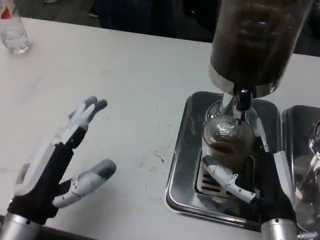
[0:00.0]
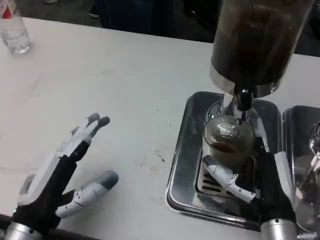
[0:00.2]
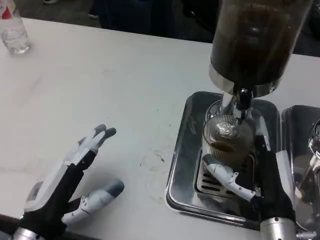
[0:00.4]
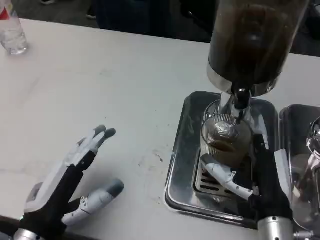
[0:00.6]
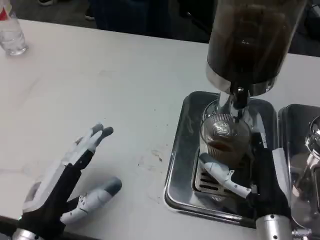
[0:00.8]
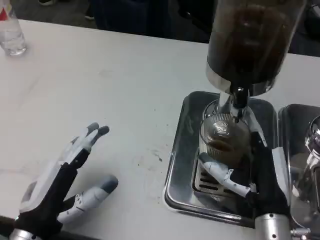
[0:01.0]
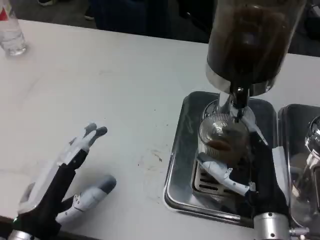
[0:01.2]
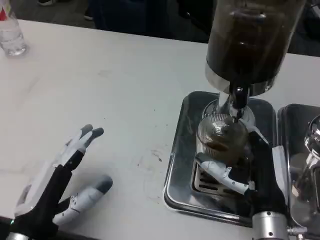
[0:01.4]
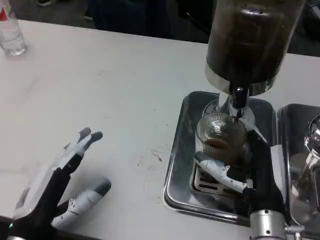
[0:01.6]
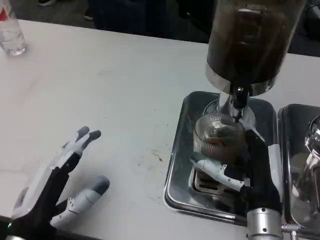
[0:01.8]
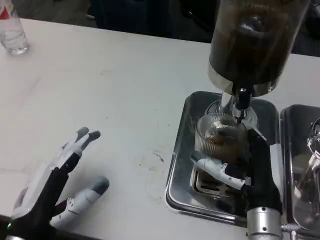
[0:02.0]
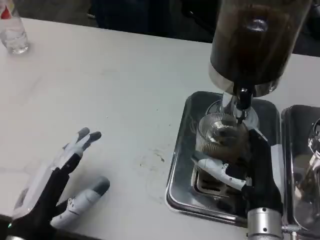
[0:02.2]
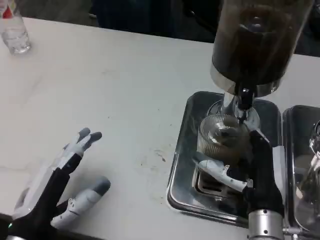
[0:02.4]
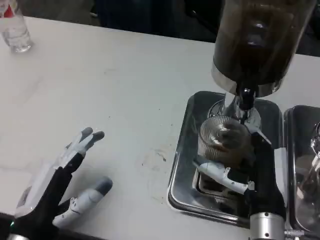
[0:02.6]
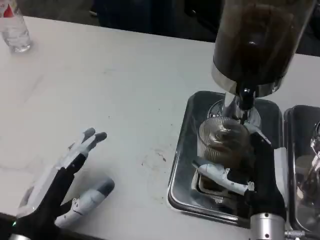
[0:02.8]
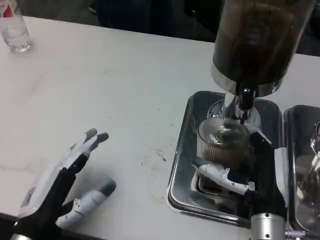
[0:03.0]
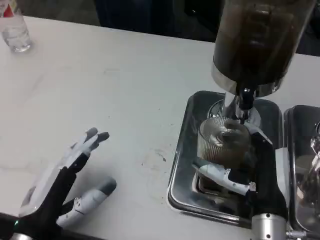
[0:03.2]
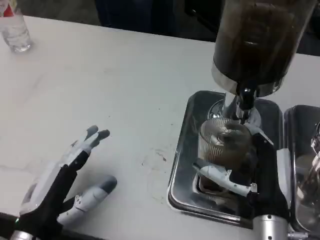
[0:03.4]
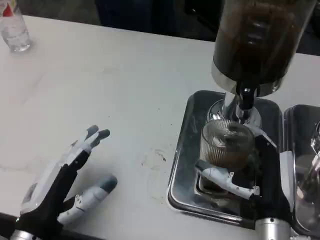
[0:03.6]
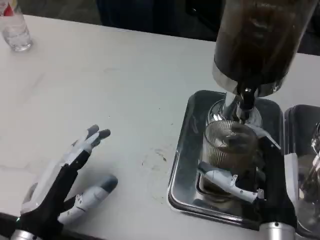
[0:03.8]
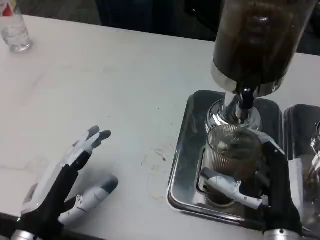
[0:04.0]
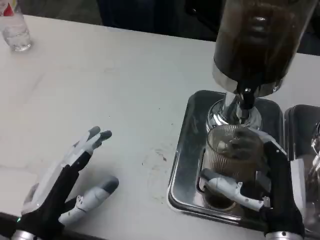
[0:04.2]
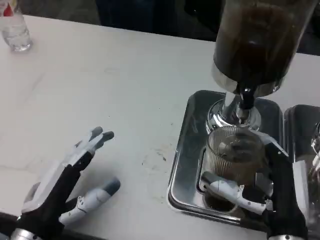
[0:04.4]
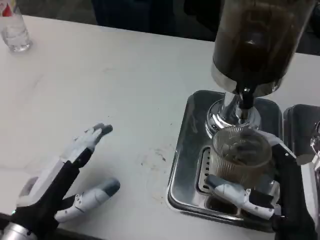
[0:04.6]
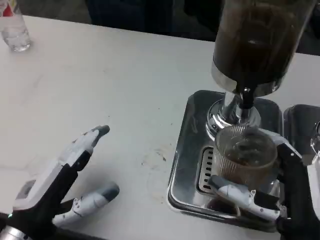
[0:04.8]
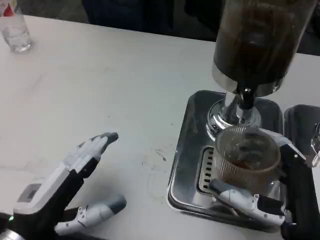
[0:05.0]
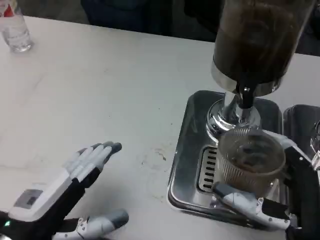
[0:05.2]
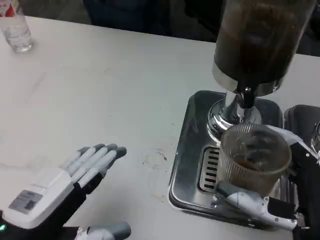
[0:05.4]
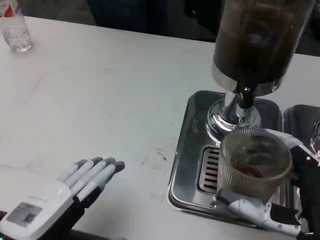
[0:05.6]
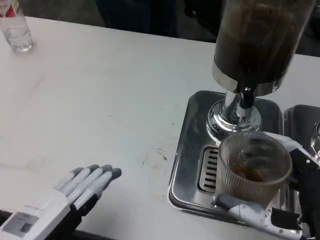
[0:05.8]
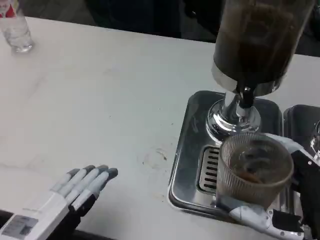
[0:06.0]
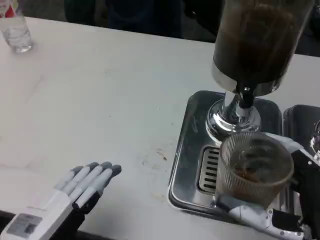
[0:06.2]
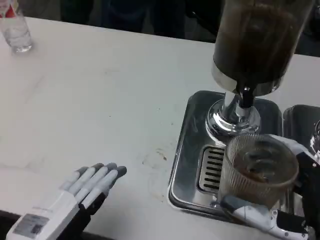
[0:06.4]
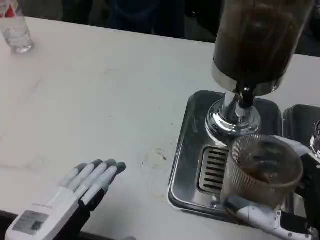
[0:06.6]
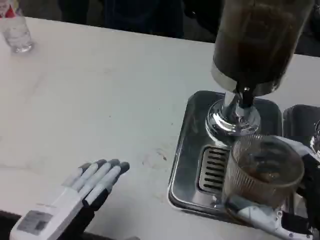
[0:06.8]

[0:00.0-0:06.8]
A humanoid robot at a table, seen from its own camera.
Task of the whole recording: Grasp the cup under the faucet to collect the drink, then remove the cup.
0:01.4 to 0:04.0: There are only small adjustments of the hands.
0:04.0 to 0:05.4: The right hand heads backward and upward, covering some 5 cm; the left hand is displaced upward by about 5 cm.
0:05.4 to 0:06.8: The hands stay close to where they were, moving slightly.

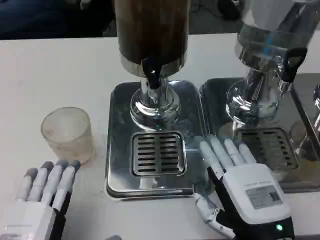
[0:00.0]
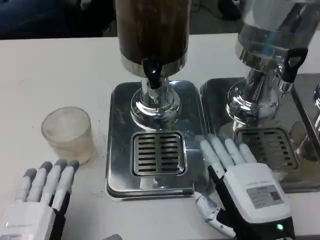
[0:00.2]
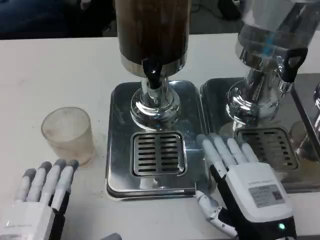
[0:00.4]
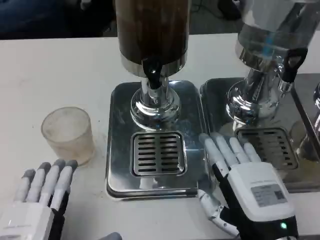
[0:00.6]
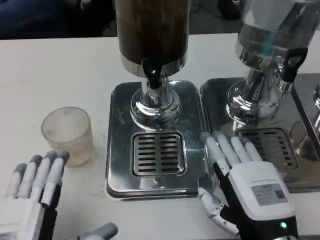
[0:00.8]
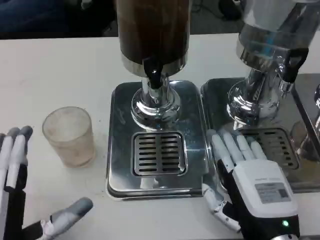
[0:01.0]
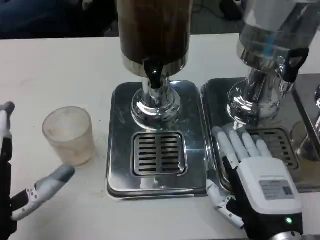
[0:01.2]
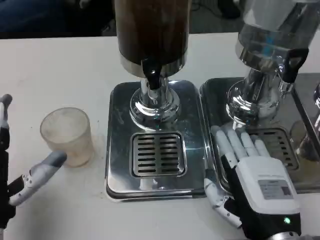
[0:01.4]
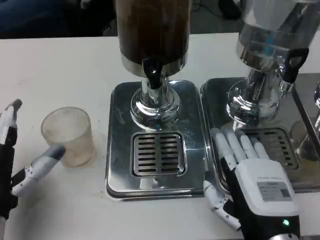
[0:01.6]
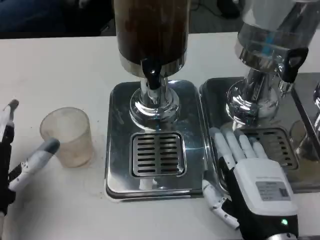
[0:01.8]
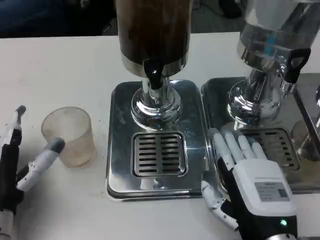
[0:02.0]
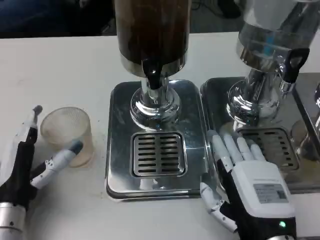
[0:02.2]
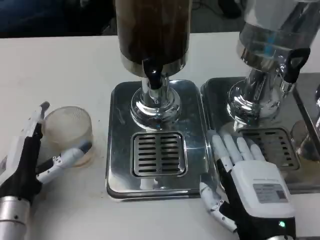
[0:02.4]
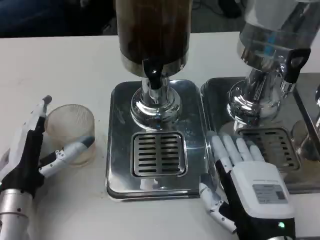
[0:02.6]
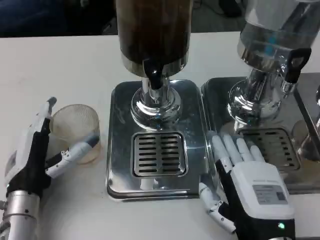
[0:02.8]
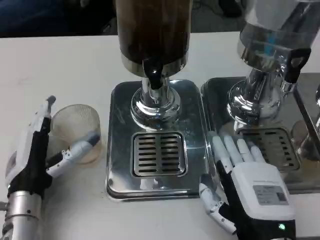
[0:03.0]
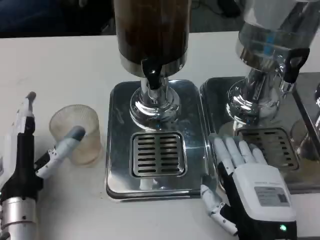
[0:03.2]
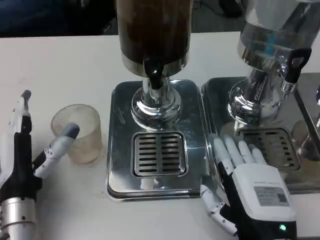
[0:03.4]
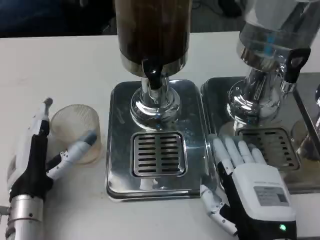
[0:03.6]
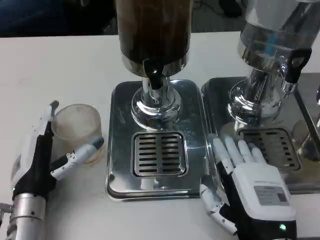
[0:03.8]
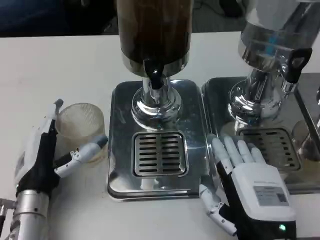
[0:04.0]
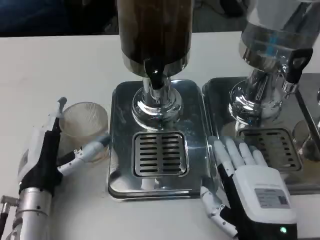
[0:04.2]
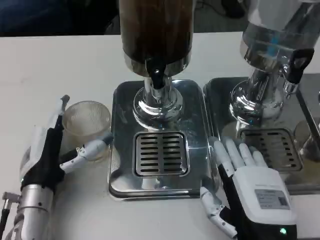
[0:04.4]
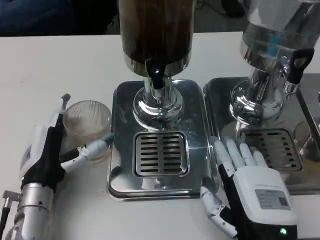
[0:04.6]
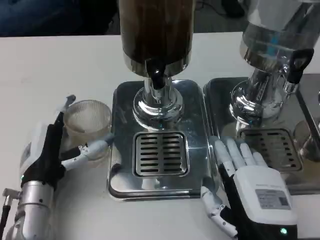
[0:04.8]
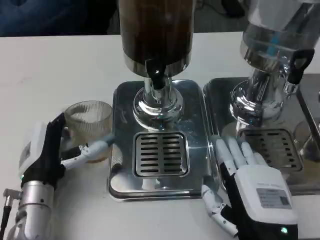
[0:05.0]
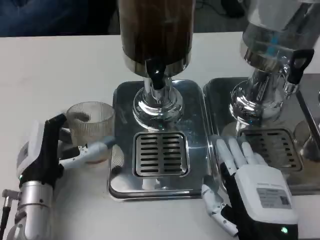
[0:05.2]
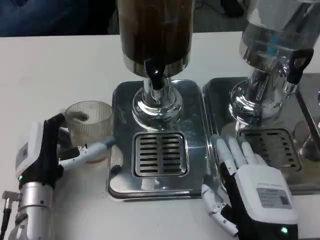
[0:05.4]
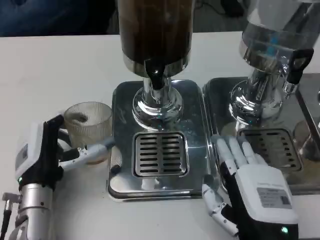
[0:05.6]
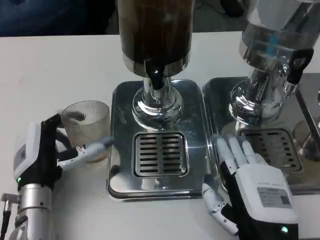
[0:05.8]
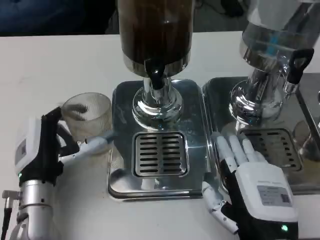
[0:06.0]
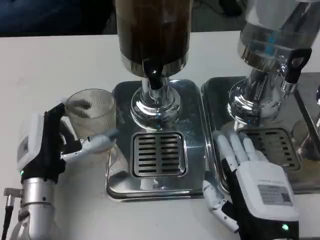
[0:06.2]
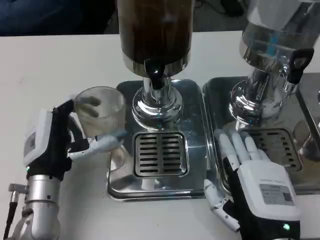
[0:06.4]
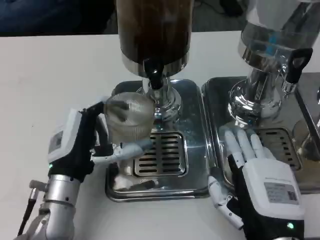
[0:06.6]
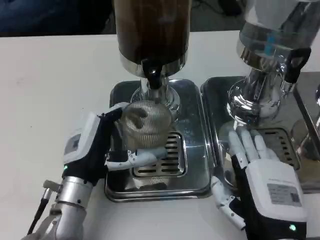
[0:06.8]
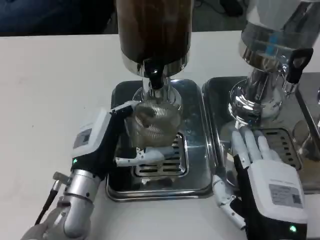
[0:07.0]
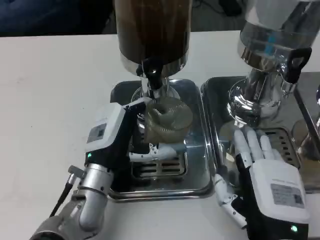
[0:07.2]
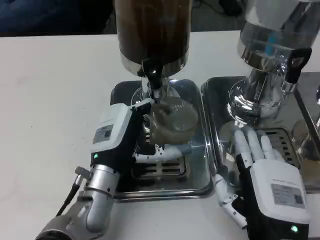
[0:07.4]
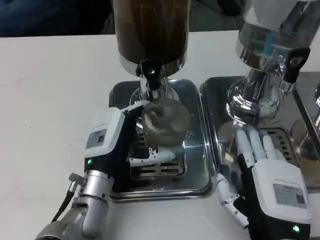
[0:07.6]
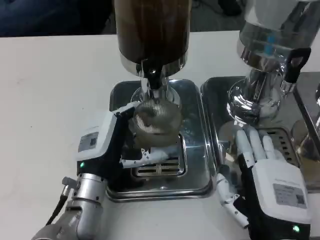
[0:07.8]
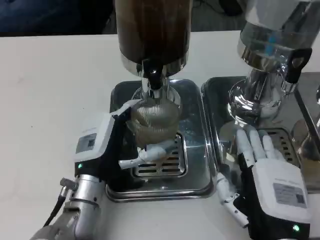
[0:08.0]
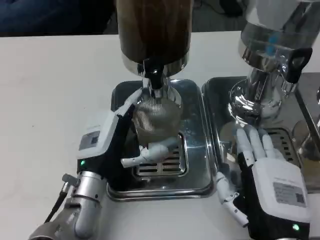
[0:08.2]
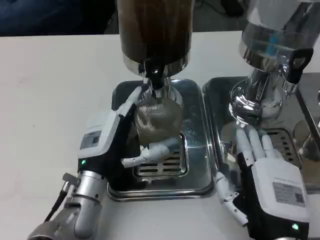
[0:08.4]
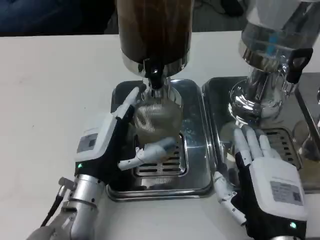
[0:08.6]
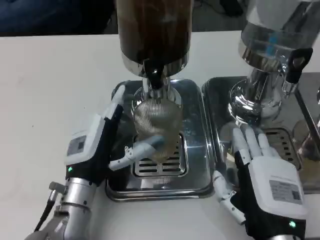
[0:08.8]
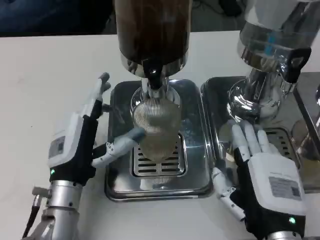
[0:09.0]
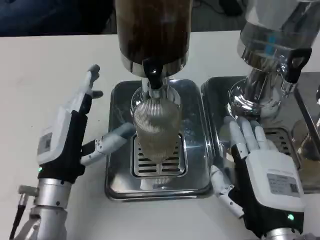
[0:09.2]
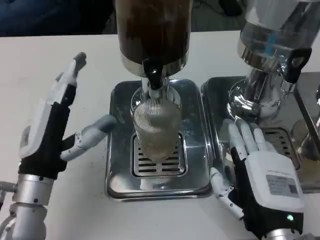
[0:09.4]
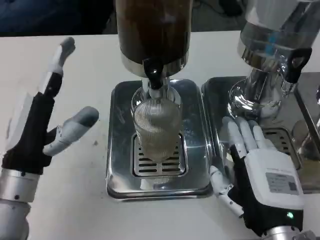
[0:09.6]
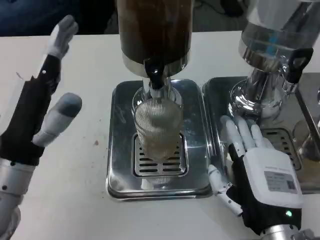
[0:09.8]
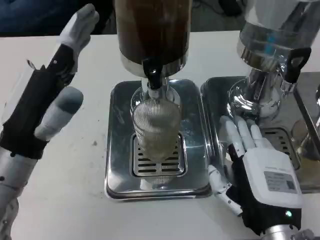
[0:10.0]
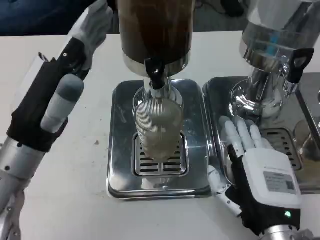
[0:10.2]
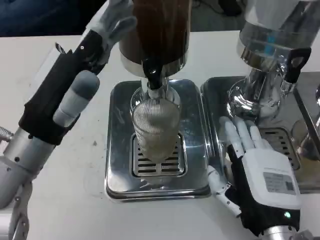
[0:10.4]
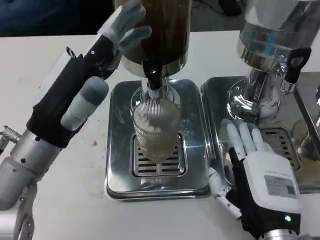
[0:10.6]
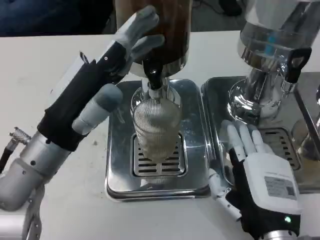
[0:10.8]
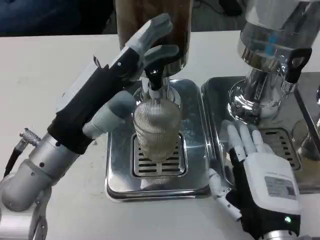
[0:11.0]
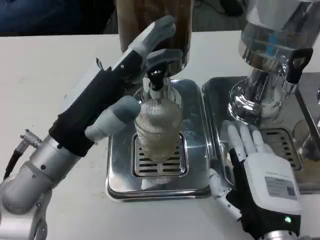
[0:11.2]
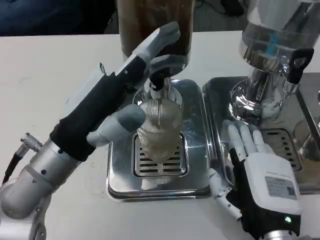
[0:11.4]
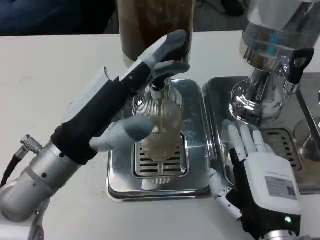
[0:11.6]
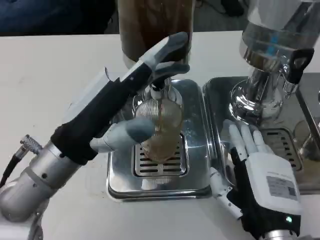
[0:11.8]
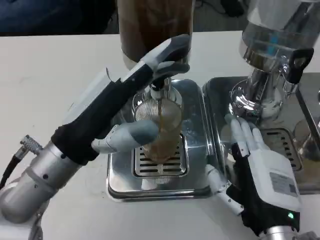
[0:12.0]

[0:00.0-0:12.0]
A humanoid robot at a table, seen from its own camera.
Task of the whole recording: Grasp the cup under the faucet to collect the drink, then remove the cup.
0:00.0 to 0:01.6: The left hand moves forward and to the left, roughly 10 cm.
0:01.6 to 0:03.0: The left hand changes place by approximately 5 cm.
0:04.4 to 0:06.0: The hands make only small movements.
0:06.0 to 0:07.6: The left hand heads to the right, covering about 5 cm.
0:09.0 to 0:10.4: The left hand moves upward, some 10 cm.

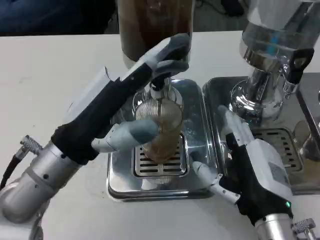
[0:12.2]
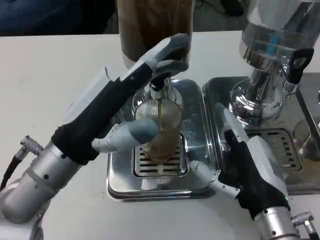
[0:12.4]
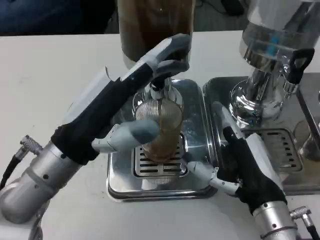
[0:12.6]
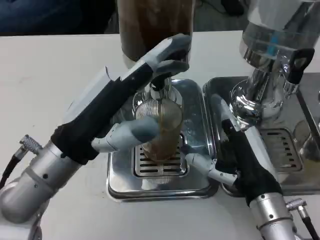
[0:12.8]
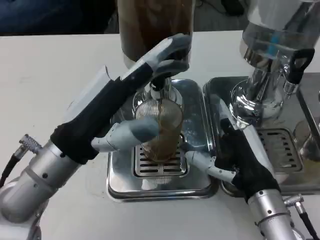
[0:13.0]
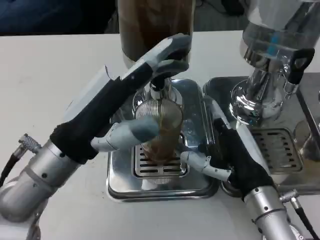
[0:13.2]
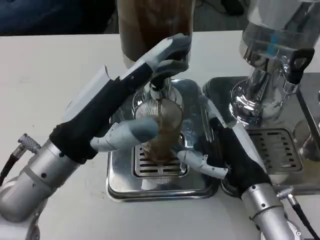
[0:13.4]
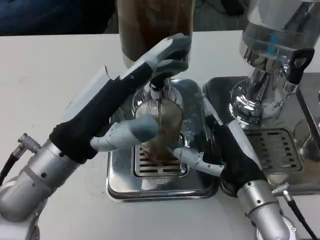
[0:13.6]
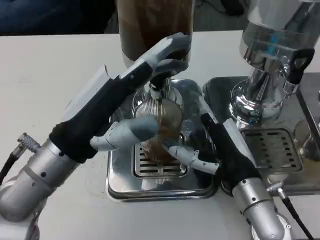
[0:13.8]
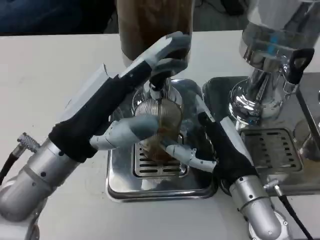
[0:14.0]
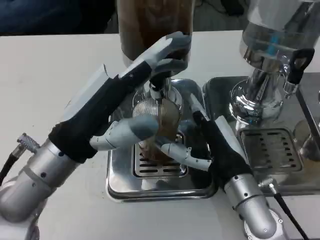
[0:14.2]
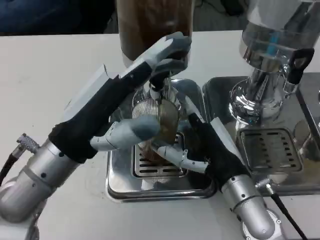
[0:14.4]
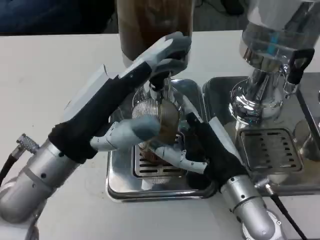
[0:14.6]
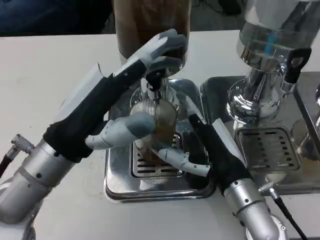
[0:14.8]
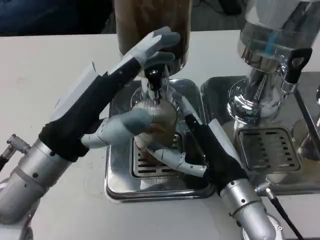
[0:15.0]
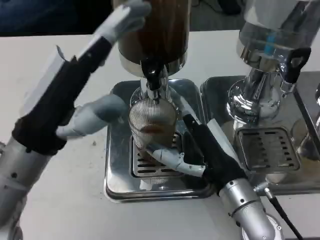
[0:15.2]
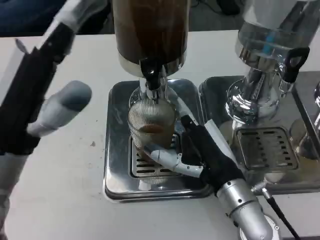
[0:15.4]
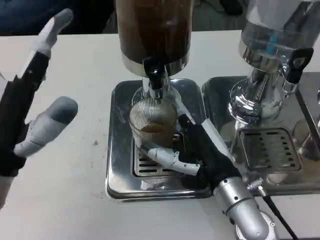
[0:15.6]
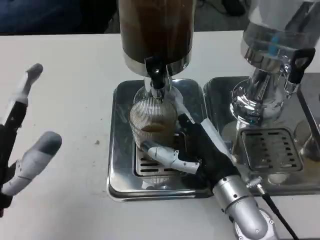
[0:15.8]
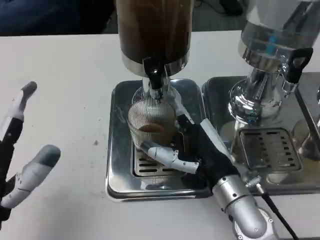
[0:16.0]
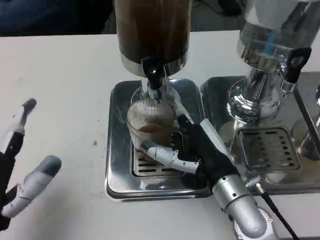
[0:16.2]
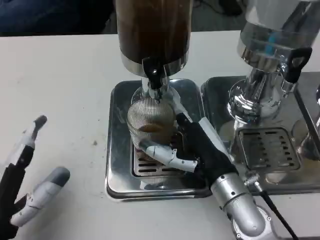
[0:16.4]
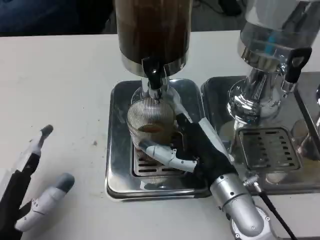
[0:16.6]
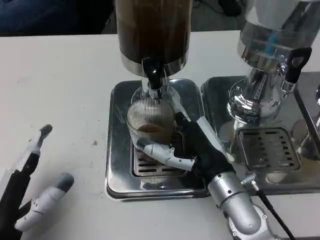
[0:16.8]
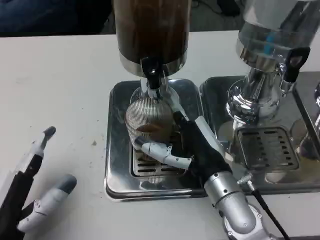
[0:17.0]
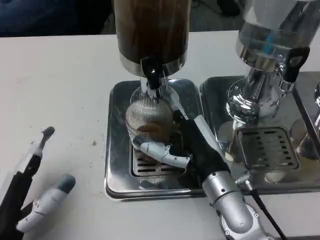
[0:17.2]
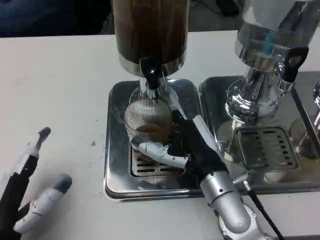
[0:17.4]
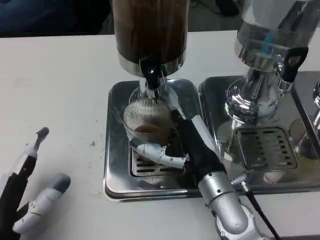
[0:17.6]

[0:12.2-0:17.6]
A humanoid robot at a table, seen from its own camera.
Task of the whole recording: Grasp the cup under the faucet to collect the drink, then remove the cup.
0:12.2 to 0:13.6: The right hand heads forward, covering some 5 cm.
0:15.0 to 0:16.2: The left hand travels backward, downward and to the left by approximately 15 cm.
